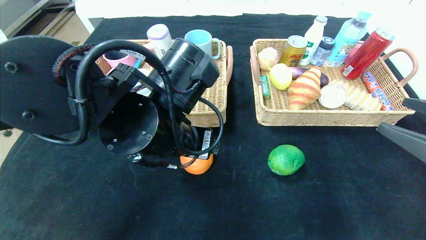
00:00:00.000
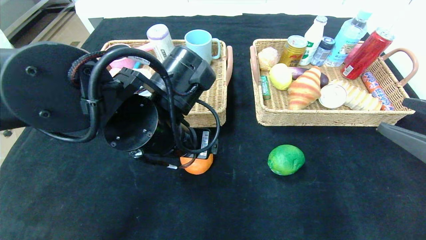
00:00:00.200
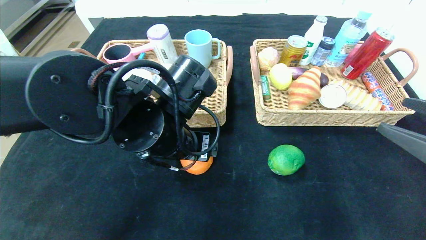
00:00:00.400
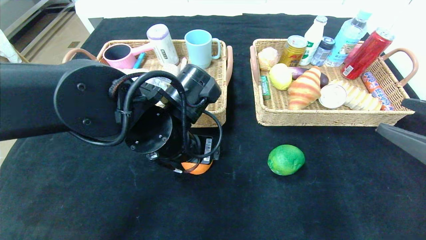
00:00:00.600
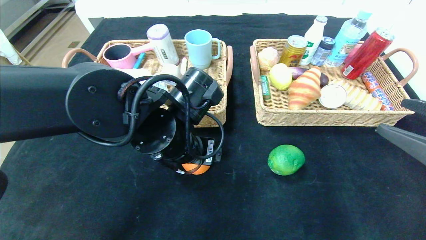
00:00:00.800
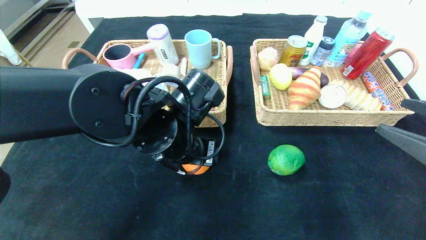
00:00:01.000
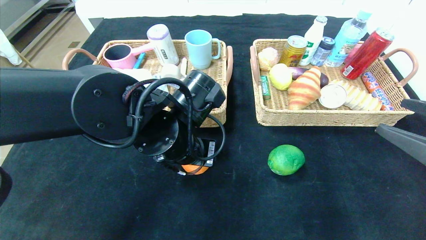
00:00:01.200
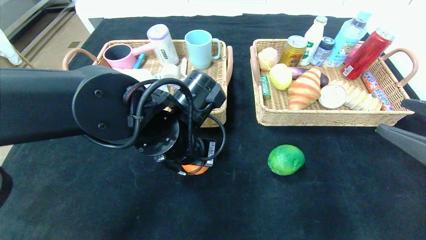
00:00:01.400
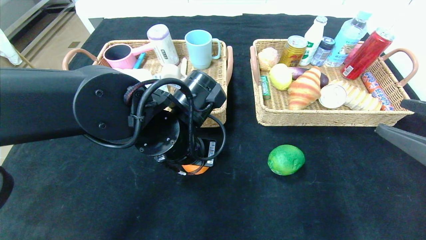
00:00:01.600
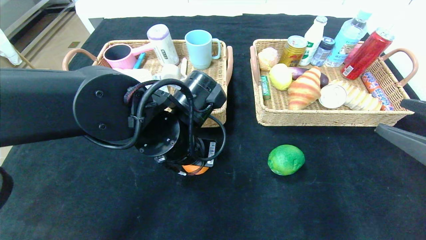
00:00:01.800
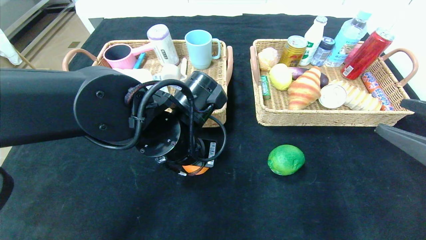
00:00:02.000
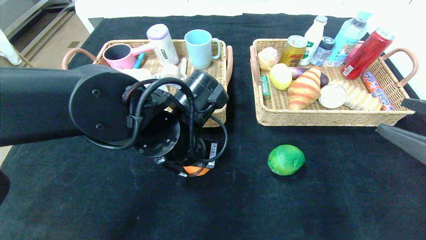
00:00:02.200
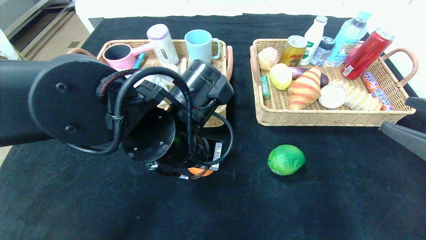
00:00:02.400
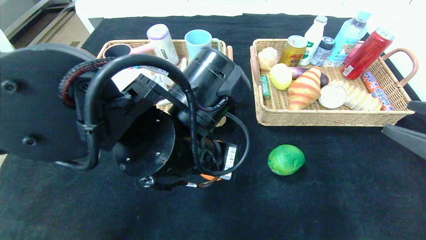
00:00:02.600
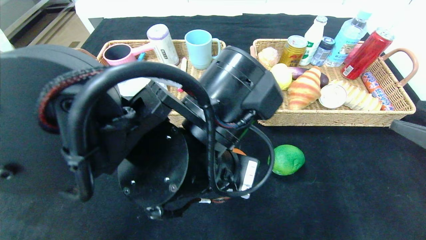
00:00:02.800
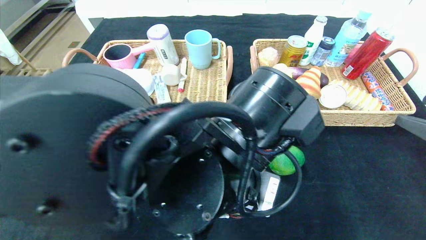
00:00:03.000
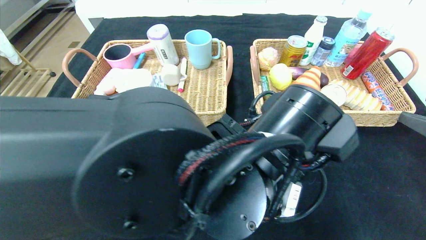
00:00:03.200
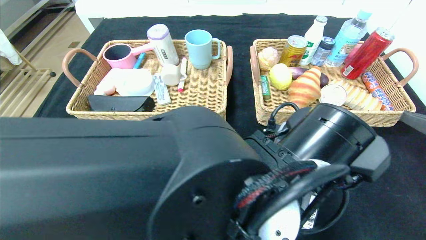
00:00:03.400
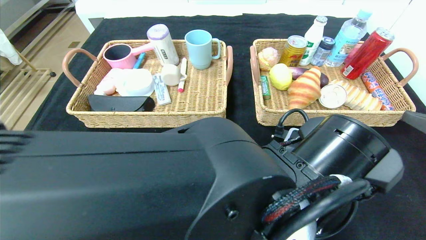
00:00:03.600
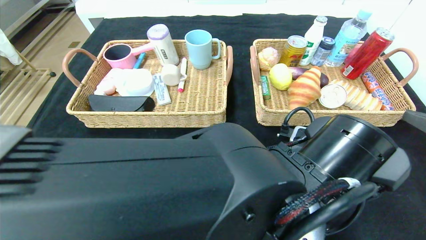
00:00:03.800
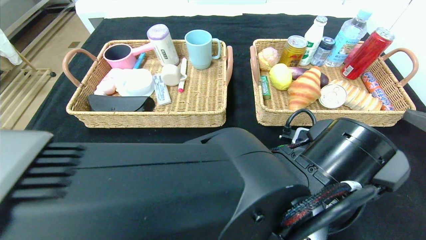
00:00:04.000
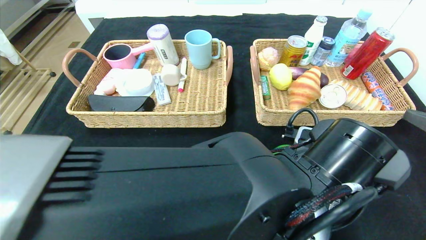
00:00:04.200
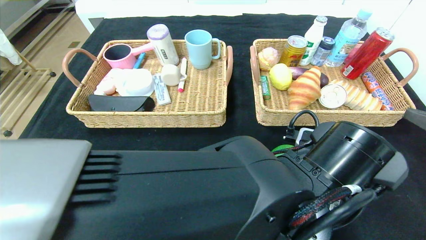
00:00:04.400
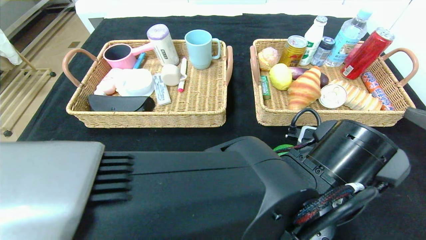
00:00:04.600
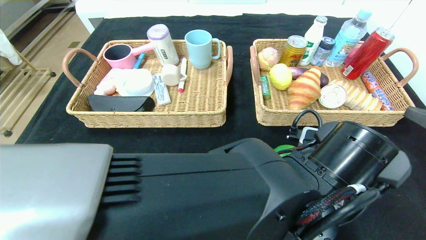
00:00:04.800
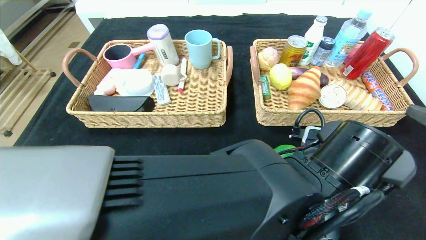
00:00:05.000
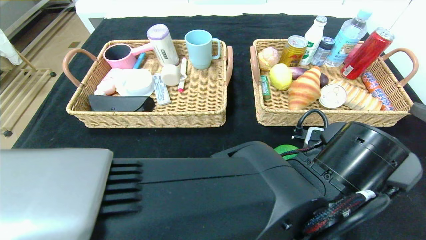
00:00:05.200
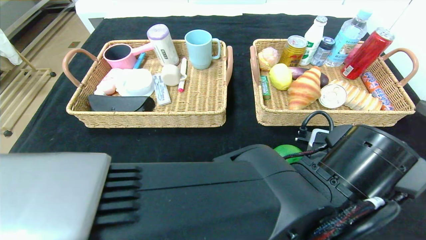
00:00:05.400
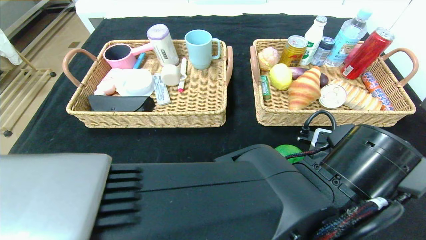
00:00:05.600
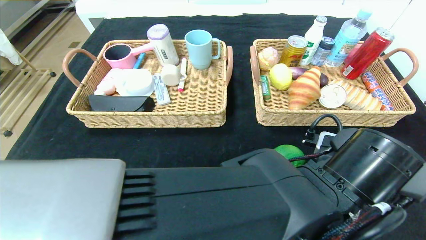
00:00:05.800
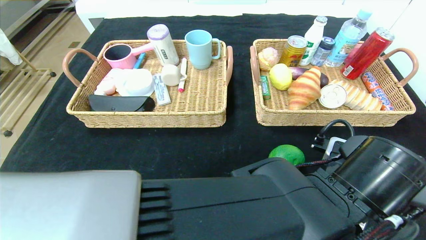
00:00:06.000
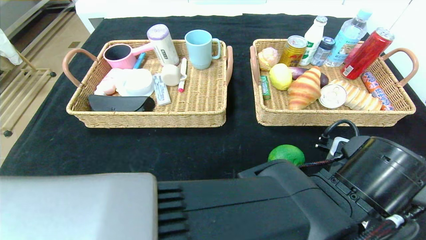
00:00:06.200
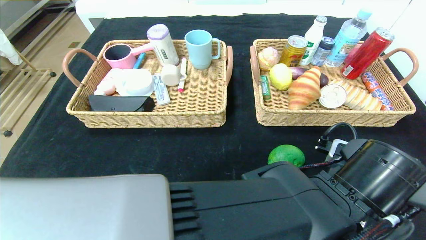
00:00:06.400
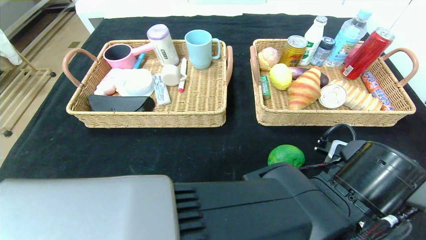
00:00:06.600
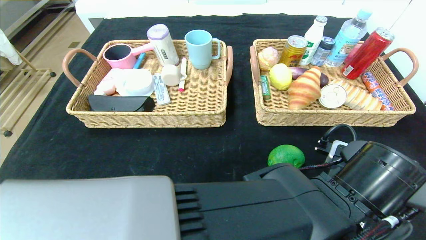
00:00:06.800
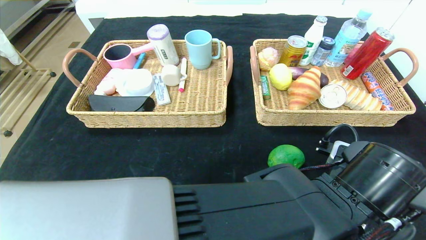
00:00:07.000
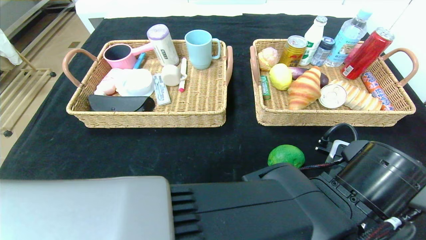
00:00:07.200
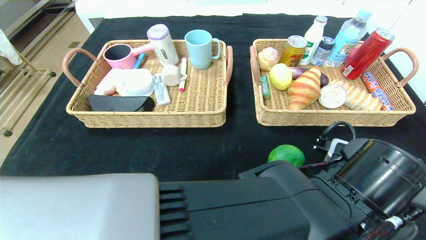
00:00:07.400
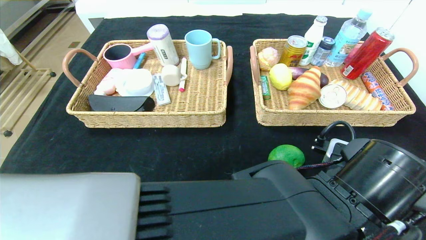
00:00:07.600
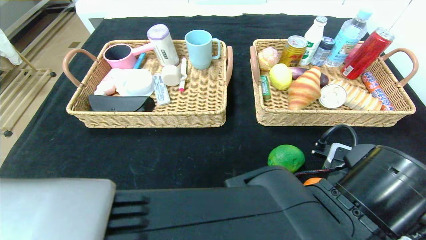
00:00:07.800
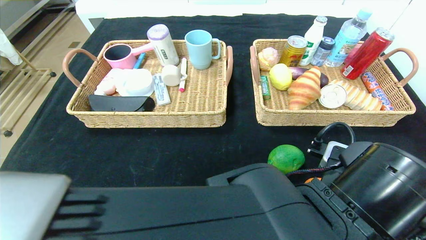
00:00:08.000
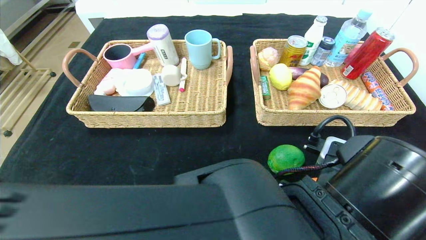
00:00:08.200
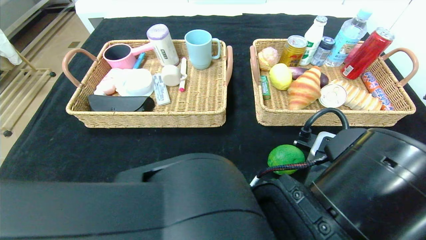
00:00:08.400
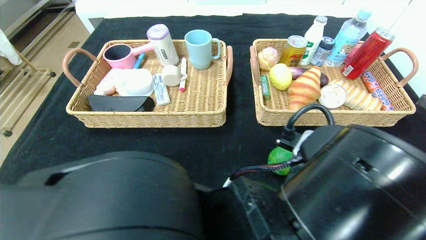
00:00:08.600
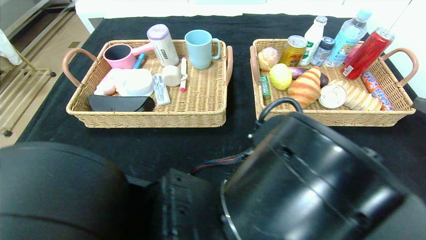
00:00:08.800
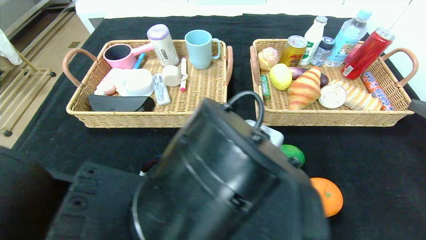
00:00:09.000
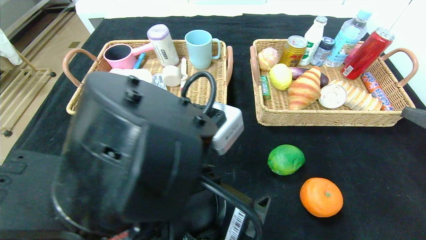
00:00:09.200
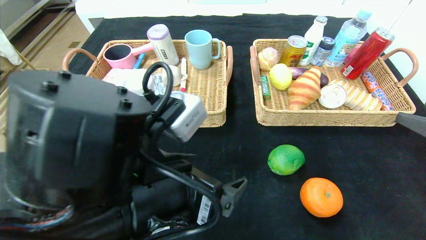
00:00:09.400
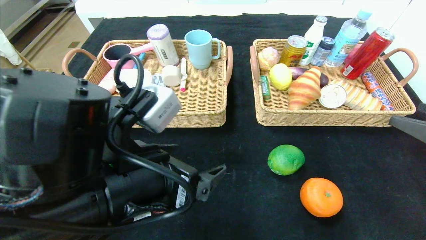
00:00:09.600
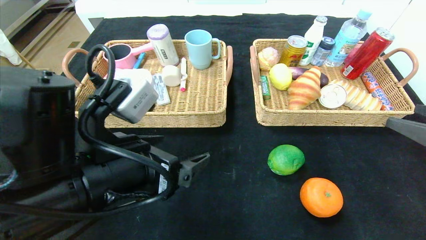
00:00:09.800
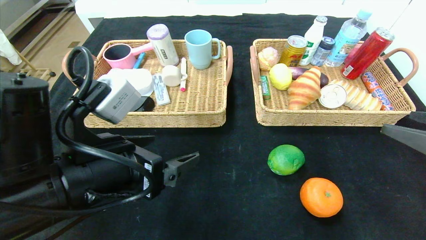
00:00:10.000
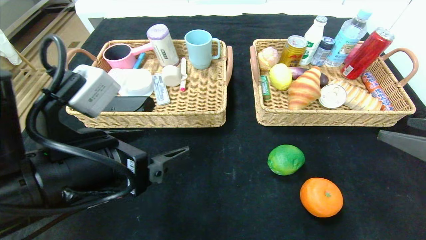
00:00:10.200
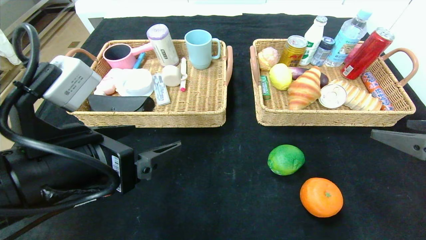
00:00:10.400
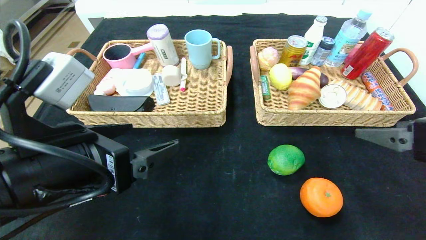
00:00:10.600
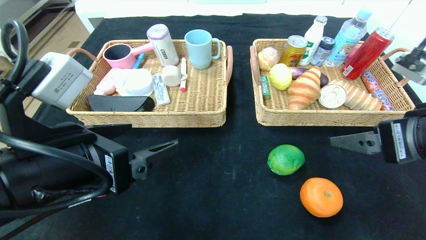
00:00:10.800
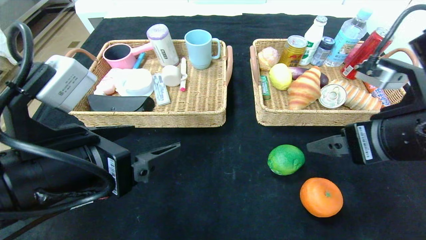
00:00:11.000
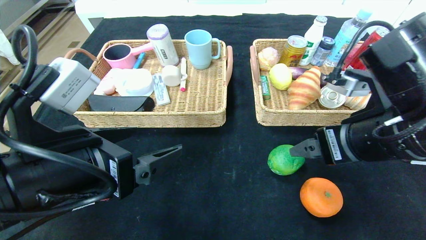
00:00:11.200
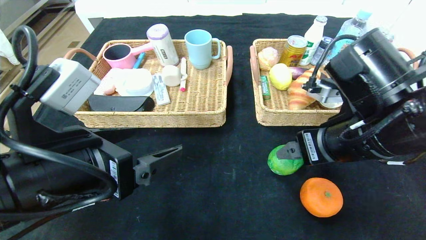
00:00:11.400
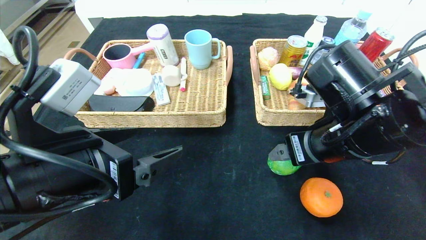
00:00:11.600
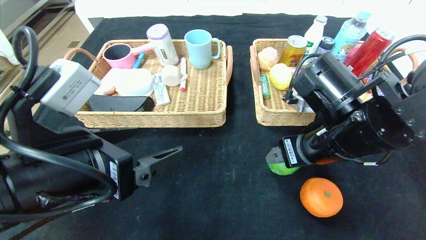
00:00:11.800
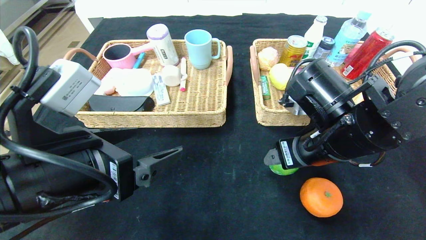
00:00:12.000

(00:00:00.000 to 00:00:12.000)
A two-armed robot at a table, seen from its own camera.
Step, 00:00:00.000 - 00:00:07.400: Place the orange in the center of the table.
00:00:00.000 - 00:00:01.600: The grippers move only a little.
00:00:01.600 - 00:00:03.000: The left gripper shifts some 10 cm backward and to the right.
00:00:03.000 - 00:00:04.400: The left gripper heads to the right, covering about 10 cm.
00:00:06.000 - 00:00:07.600: The two grippers keep their place.
00:00:07.600 - 00:00:09.000: The left gripper goes approximately 15 cm to the left.
00:00:09.000 - 00:00:10.400: The left gripper moves to the left, roughly 15 cm.
00:00:10.400 - 00:00:12.000: The right gripper shifts about 20 cm to the left and forward.

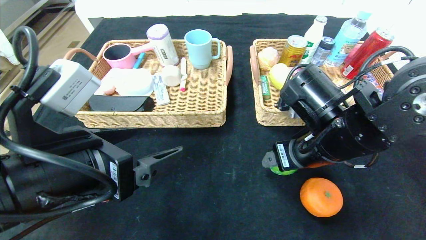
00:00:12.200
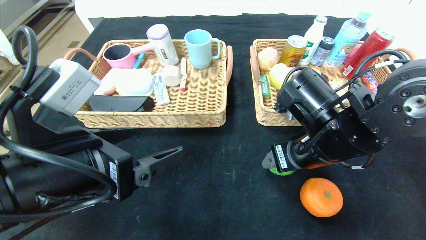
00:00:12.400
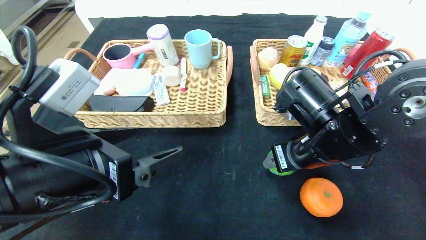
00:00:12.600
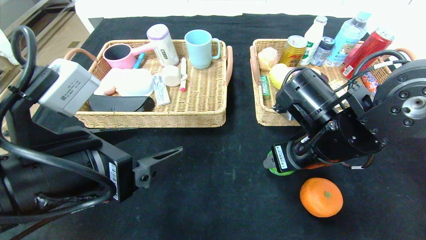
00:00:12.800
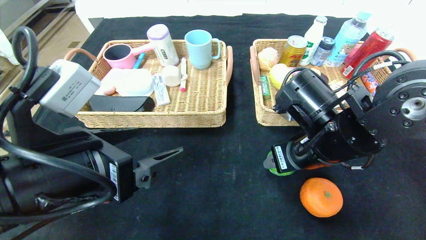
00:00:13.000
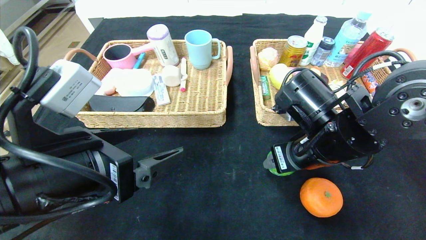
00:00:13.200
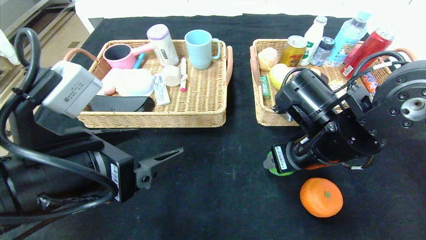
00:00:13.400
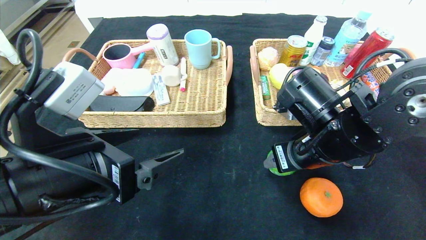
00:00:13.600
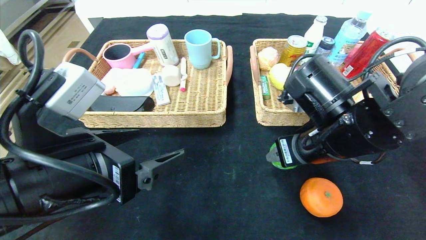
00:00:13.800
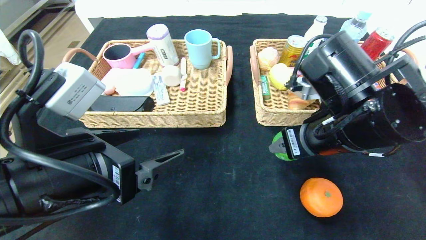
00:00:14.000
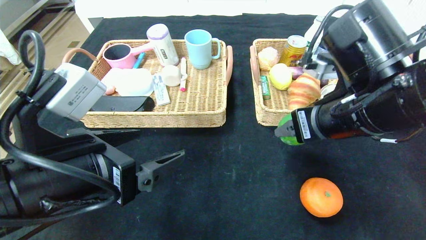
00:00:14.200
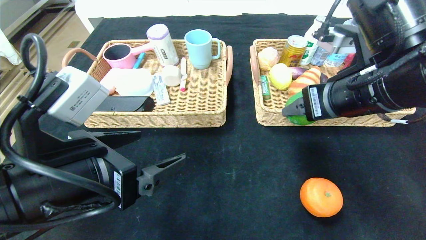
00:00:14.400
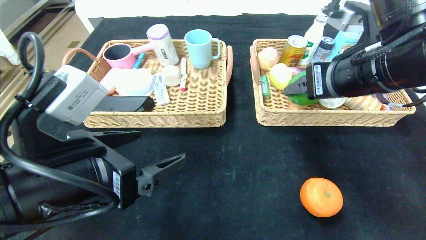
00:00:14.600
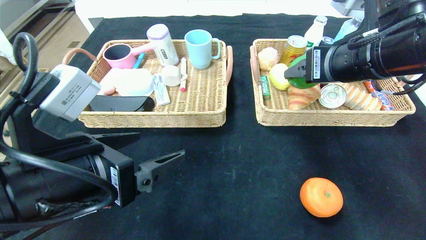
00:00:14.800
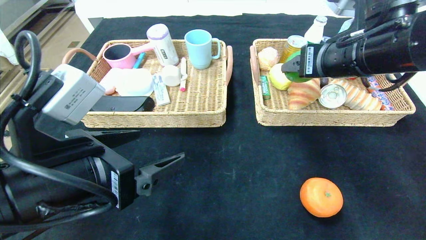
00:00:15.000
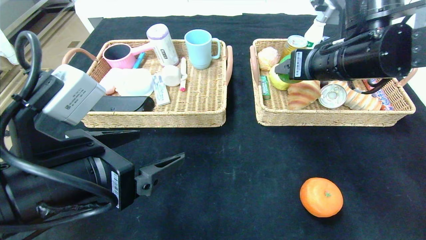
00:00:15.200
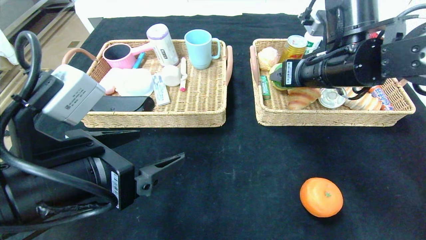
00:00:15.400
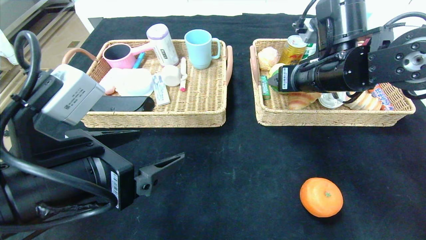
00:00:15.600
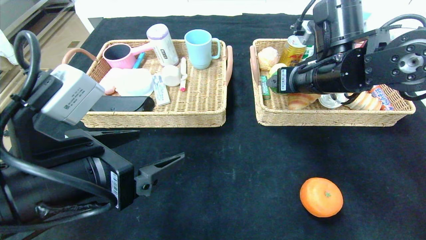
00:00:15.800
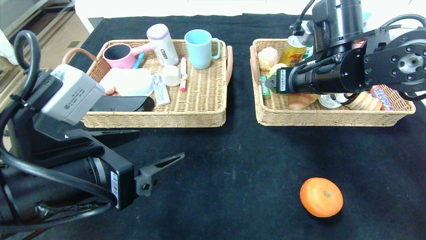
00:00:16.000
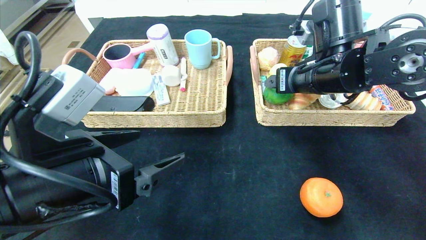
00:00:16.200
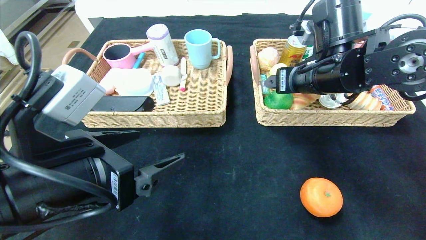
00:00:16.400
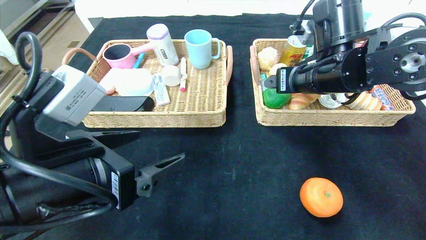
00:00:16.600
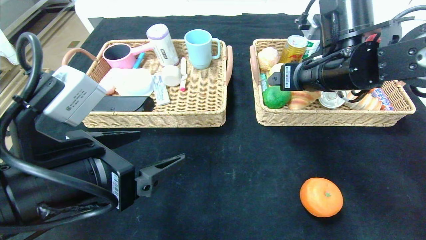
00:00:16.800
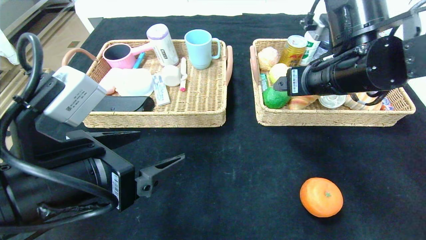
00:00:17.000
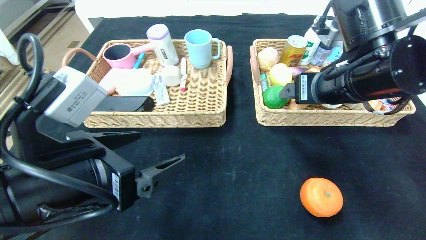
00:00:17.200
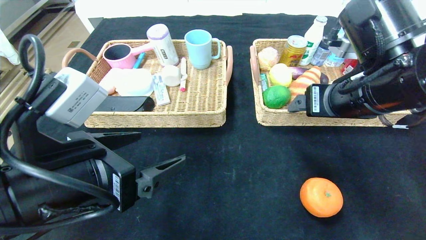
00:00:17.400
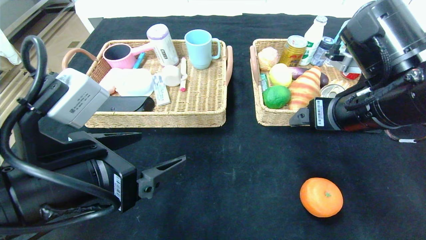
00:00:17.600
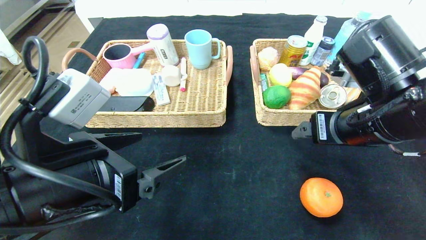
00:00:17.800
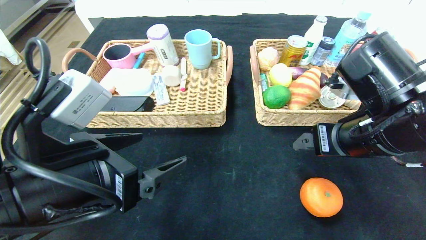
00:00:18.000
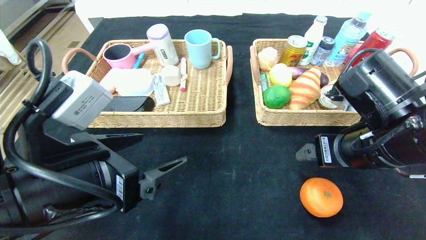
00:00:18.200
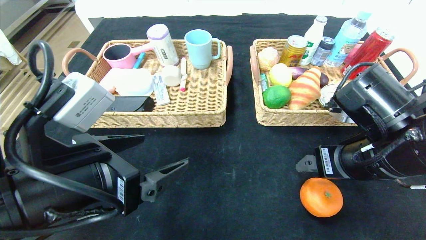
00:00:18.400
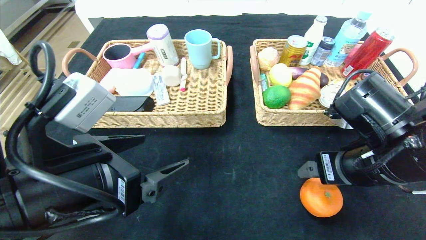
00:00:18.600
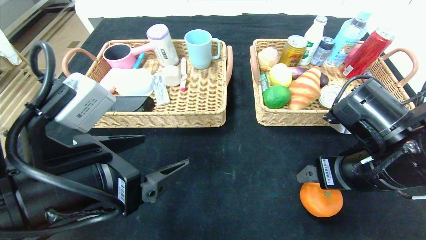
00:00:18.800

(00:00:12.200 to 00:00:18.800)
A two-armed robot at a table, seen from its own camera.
Step, 00:00:12.200 - 00:00:16.200: Grasp the green lemon and put it in the right basket.
00:00:12.200 - 00:00:13.800: The right gripper closes up.
00:00:13.800 - 00:00:15.400: The right gripper goes roughly 10 cm forward and upward.
00:00:15.400 - 00:00:17.200: The right gripper is displaced backward by some 5 cm, and opens its fingers.
00:00:17.200 - 00:00:18.800: The right gripper goes some 10 cm downward and backward.
